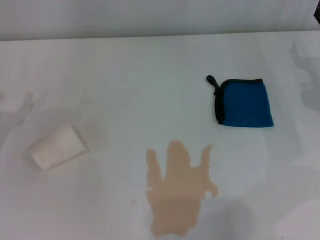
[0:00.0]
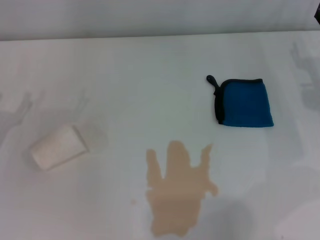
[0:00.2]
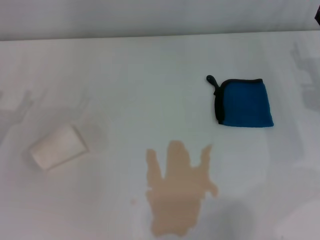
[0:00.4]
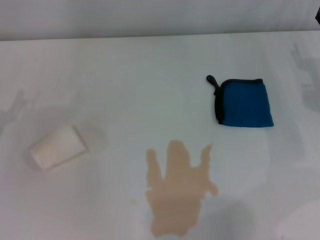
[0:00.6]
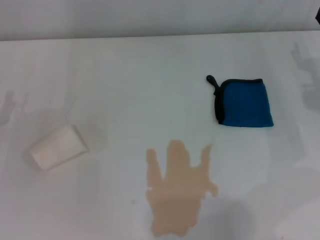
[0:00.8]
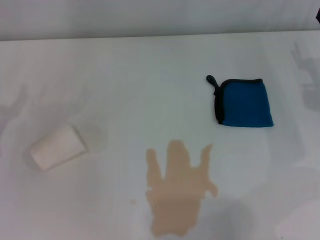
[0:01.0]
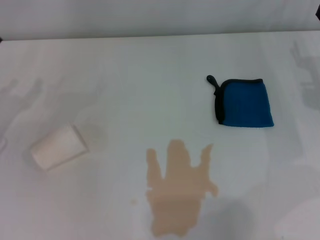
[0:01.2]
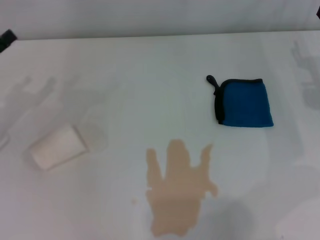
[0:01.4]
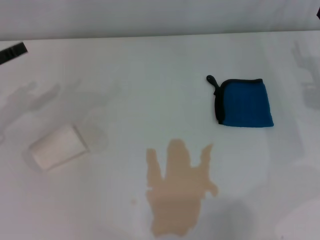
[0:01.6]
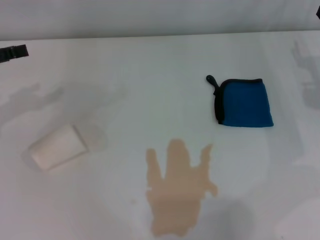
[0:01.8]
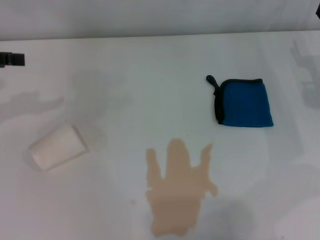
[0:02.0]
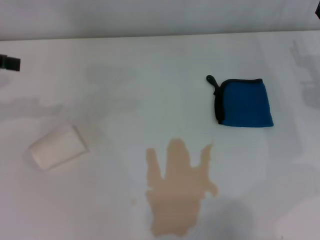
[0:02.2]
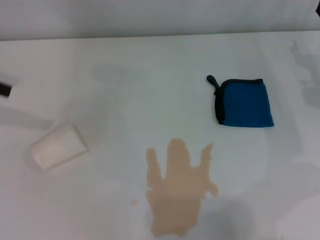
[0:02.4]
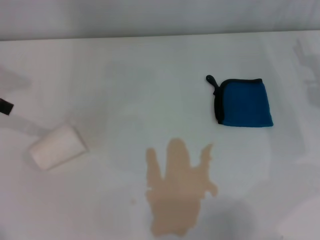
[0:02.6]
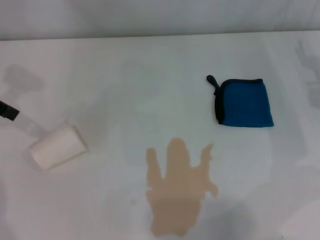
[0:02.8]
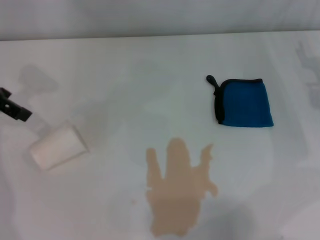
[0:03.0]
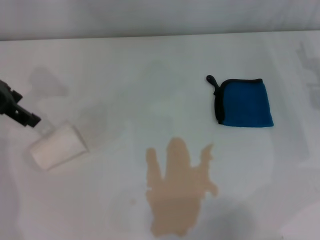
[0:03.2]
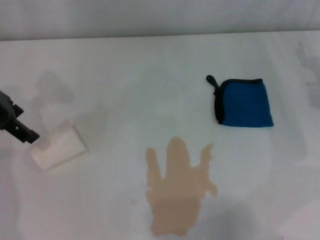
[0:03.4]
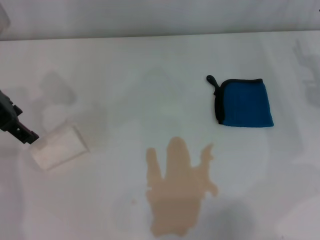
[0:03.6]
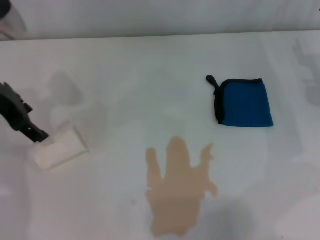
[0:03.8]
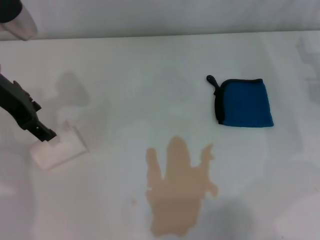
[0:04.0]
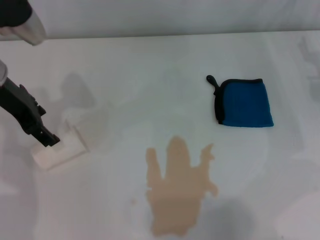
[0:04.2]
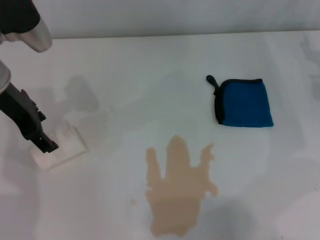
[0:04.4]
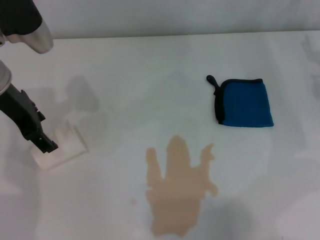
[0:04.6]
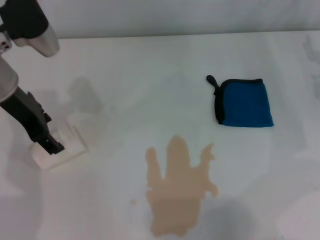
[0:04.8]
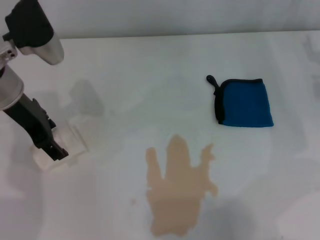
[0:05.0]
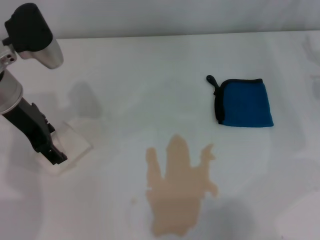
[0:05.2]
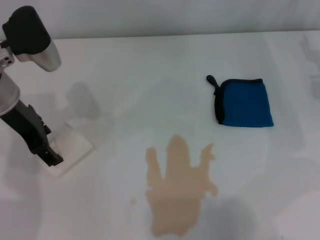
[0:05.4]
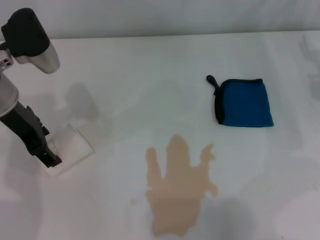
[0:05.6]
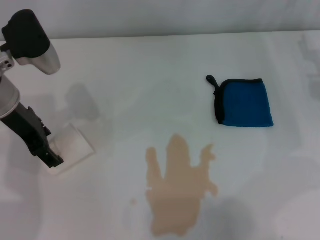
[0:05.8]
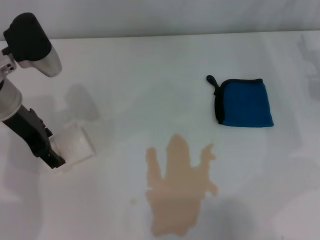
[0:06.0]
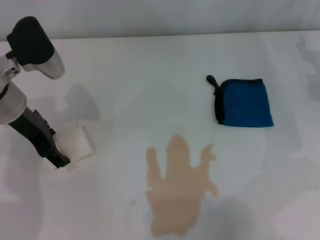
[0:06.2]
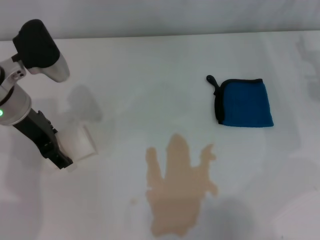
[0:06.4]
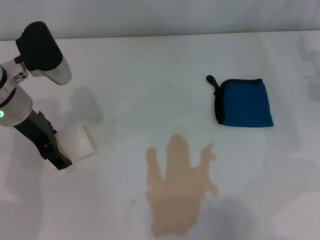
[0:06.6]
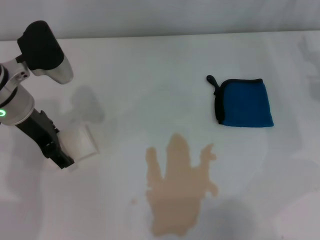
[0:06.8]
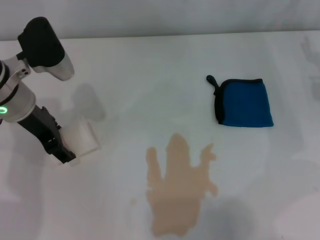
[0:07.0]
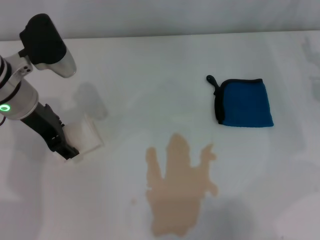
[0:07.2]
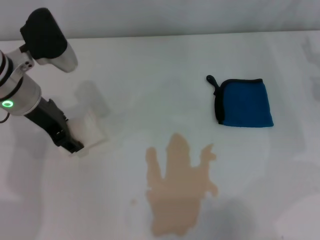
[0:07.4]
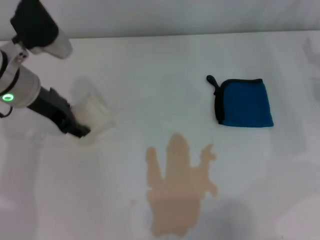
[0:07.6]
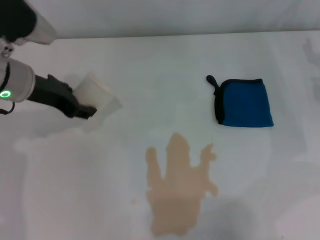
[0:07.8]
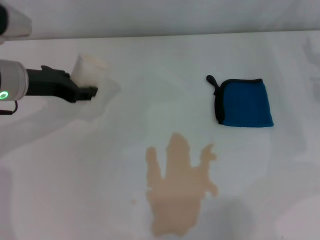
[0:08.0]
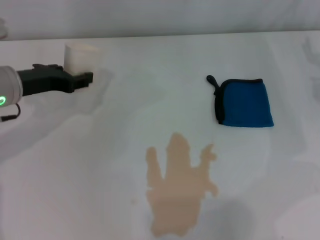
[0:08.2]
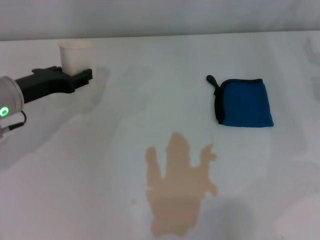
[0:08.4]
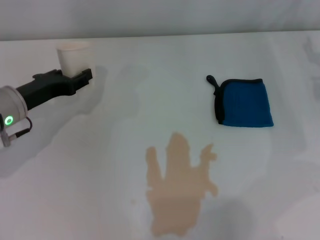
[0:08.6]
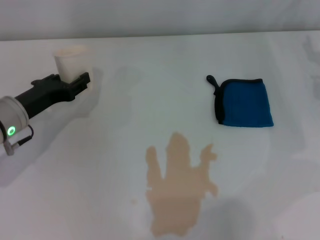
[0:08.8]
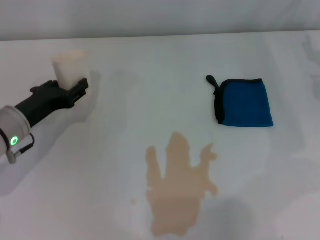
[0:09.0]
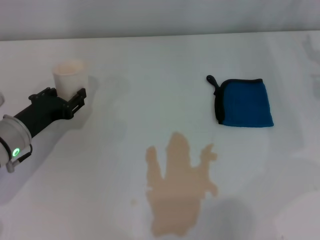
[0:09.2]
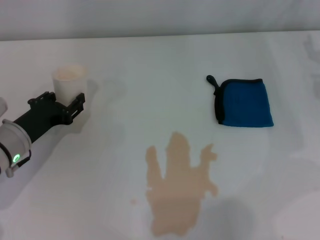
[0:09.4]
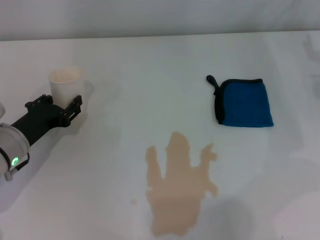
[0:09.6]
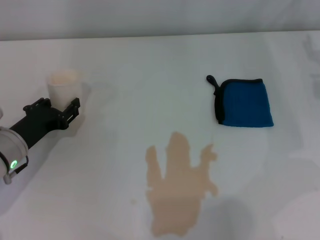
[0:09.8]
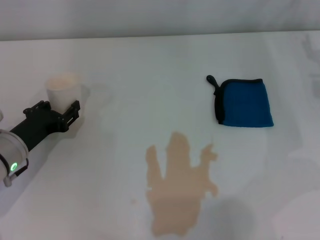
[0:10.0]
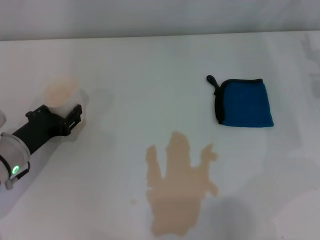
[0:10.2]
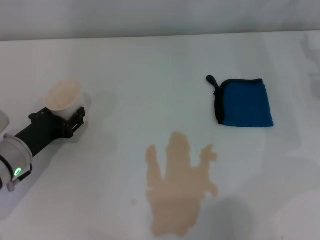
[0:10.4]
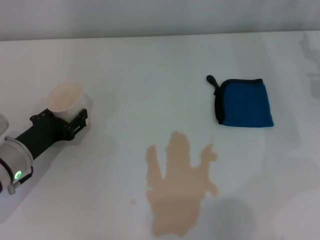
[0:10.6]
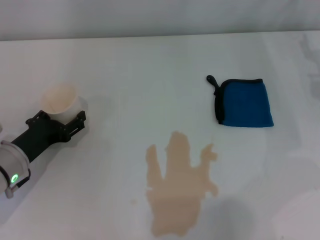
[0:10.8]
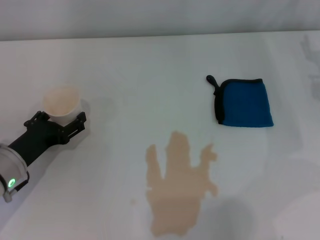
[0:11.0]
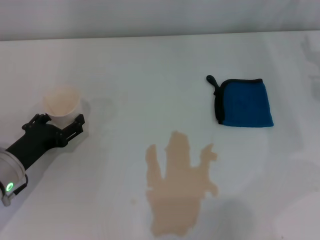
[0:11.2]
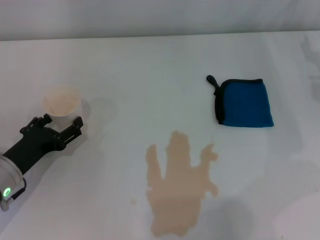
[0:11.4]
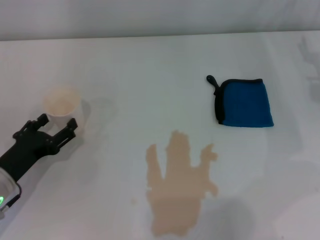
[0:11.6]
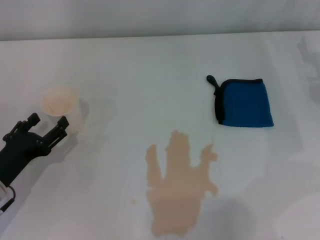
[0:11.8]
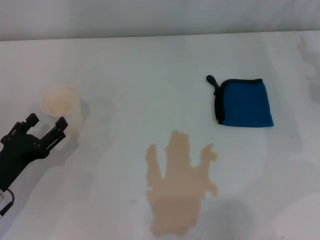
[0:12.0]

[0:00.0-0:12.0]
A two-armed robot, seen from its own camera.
Step, 0:00.0 to 0:06.2: Grasp the paper cup with the left gripper.
Step, 0:06.6 to 0:10.6: Stand the paper cup upright with the left gripper.
0:01.6 to 0:03.0: The left gripper travels upward and to the right by roughly 15 cm.
0:03.0 to 0:04.4: The left gripper goes some 5 cm to the right.
0:04.4 to 0:06.0: The grippers stay close to where they were, moving slightly.
0:06.0 to 0:07.6: The left gripper closes up.
0:07.6 to 0:09.0: The left gripper moves downward, some 10 cm.
0:09.0 to 0:10.4: There are only small adjustments of the grippers.
0:10.4 to 0:12.0: The left gripper travels backward by roughly 5 cm, and opens its fingers.

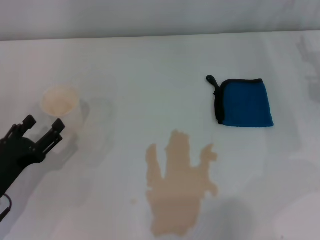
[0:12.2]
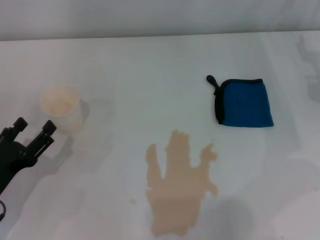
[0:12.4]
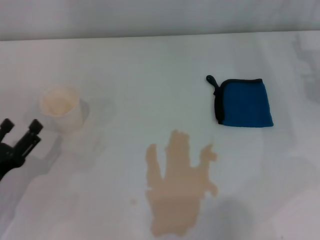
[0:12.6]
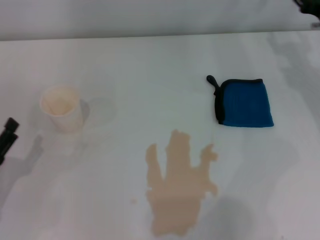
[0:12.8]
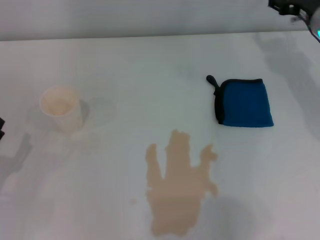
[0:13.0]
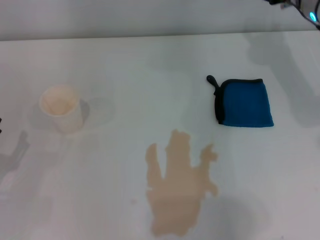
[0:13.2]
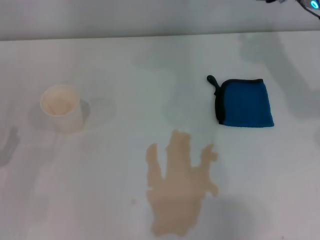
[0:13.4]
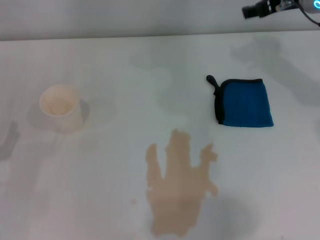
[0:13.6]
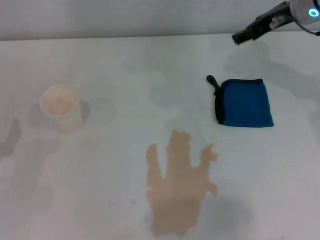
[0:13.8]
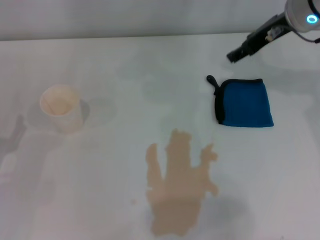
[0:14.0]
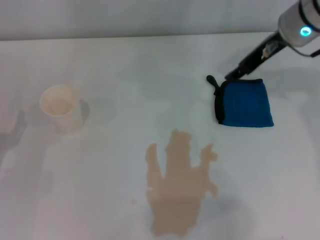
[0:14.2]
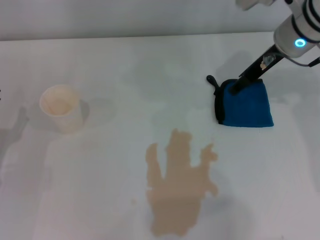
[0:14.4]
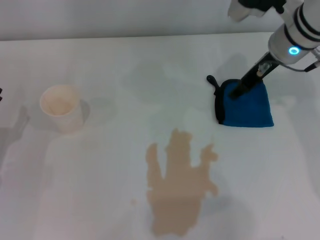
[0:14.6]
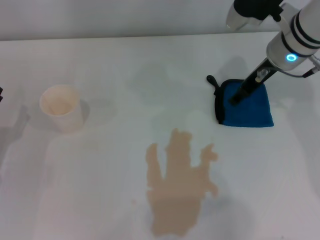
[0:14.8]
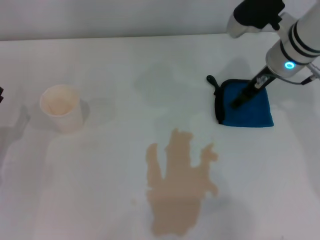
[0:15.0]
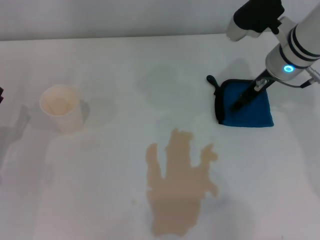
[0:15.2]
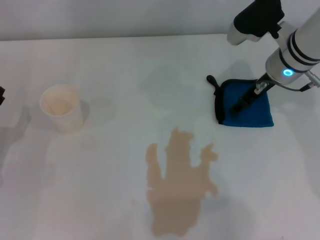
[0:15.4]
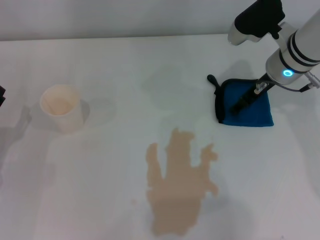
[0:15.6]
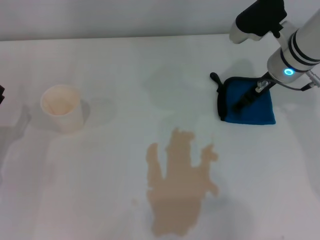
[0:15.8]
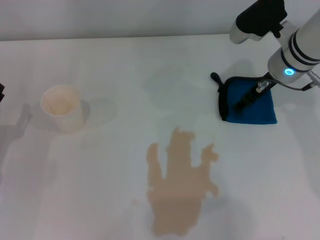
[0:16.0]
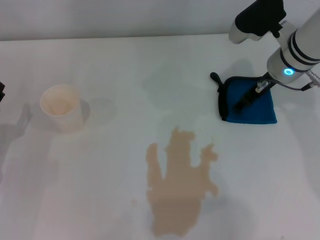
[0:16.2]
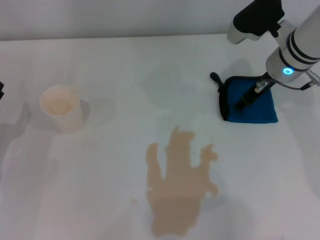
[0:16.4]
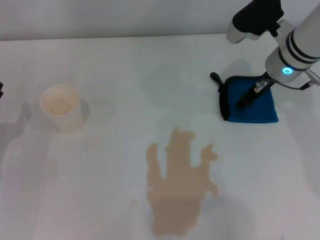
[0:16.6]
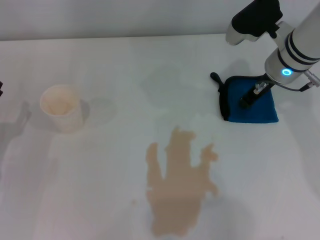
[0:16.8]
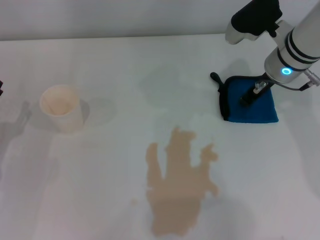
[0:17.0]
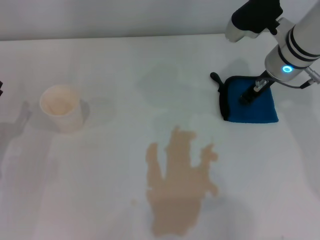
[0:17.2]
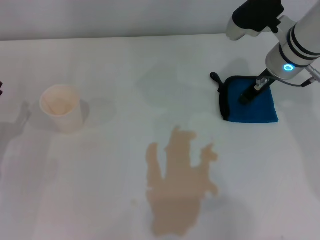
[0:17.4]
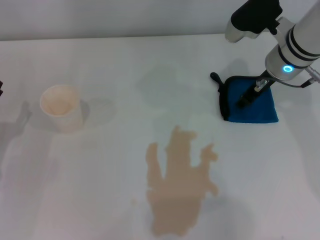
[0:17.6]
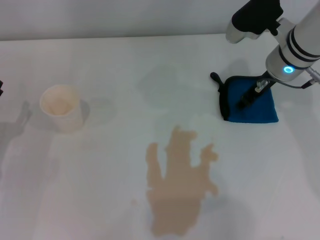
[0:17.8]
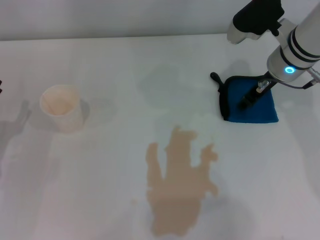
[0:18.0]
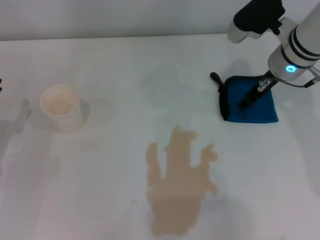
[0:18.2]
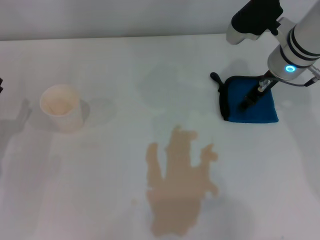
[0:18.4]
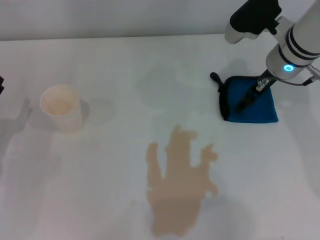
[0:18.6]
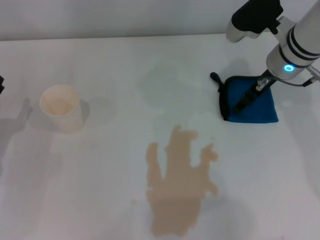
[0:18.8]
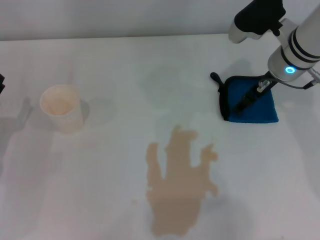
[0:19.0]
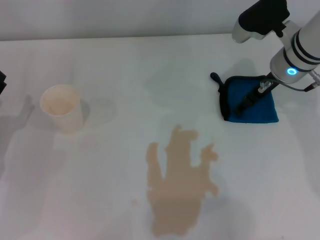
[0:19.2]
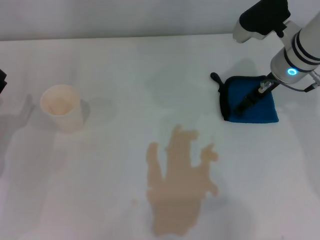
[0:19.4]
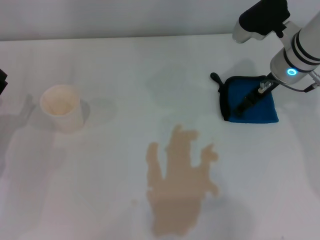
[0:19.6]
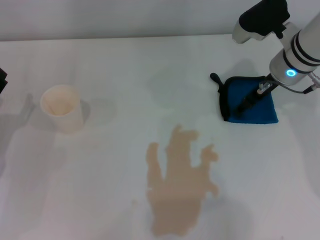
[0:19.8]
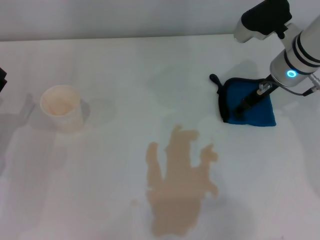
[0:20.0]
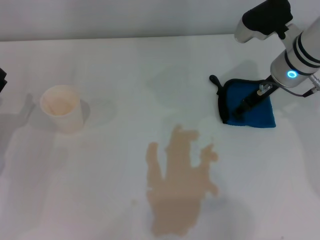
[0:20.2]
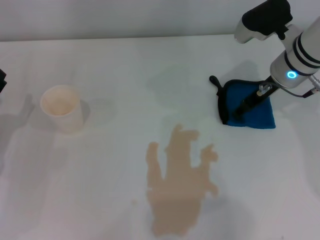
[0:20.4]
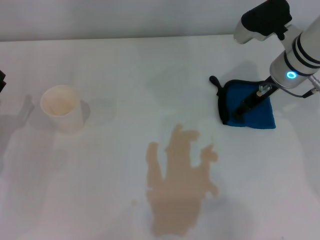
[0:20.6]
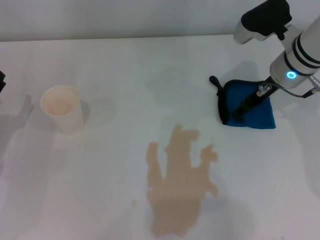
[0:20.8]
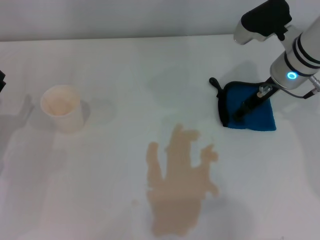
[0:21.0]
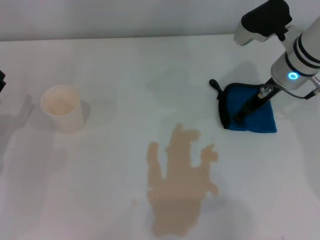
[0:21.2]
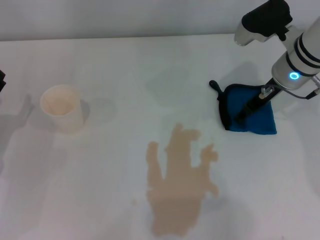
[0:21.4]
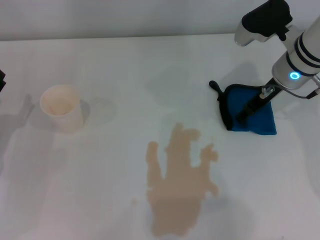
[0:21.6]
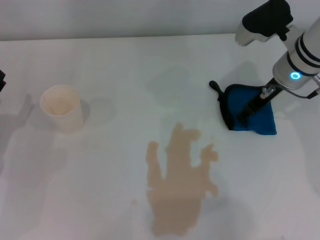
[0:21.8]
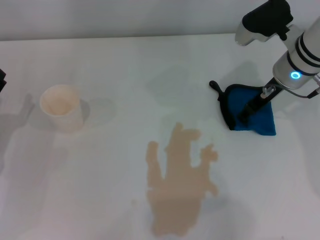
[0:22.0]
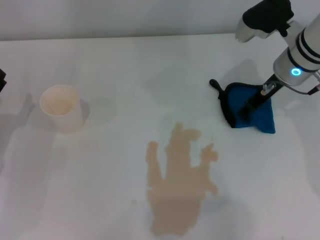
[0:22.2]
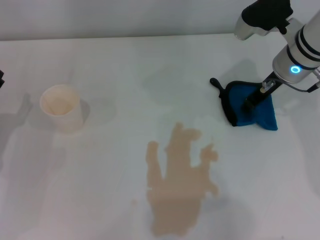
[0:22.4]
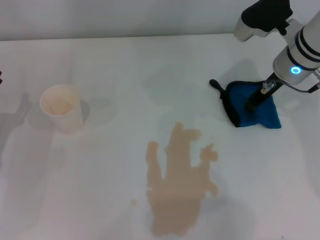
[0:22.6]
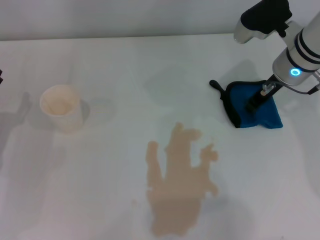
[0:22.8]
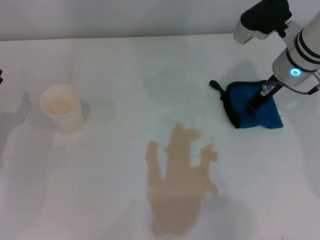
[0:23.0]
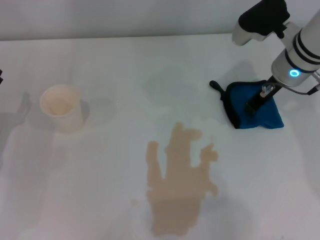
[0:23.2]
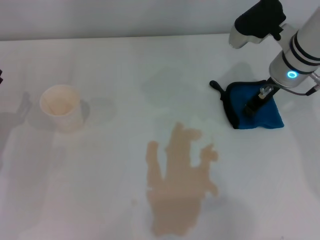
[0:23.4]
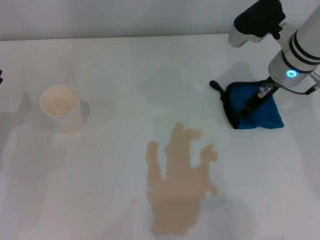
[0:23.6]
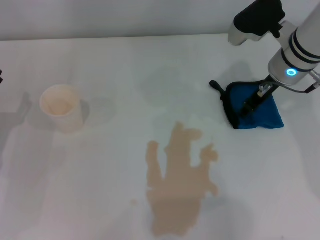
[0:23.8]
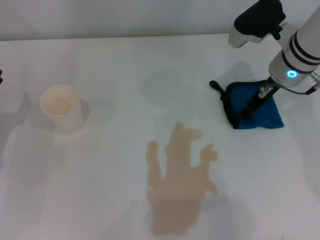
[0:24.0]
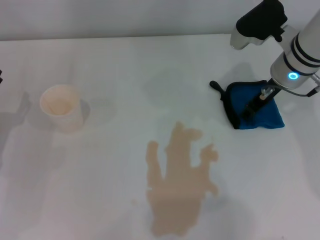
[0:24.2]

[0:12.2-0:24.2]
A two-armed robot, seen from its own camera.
Step, 0:12.2 to 0:20.8: Grasp the rag with the right gripper.
0:12.2 to 0:13.8: The right gripper moves upward, to the left and forward, some 15 cm.
0:13.8 to 0:15.2: The right gripper moves downward, about 5 cm.
0:15.2 to 0:16.6: Both grippers stay about where they are.
0:16.6 to 0:18.2: The right gripper closes and opens again.
0:18.2 to 0:19.8: The right gripper opens up.
0:19.8 to 0:21.2: Both grippers stay about where they are.
0:21.2 to 0:22.6: The right gripper closes up.
0:22.6 to 0:24.2: Both grippers stay about where they are.
